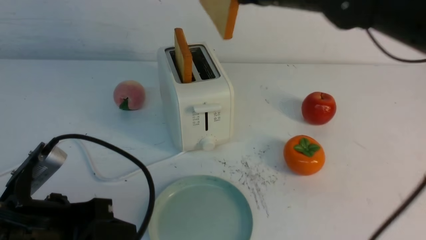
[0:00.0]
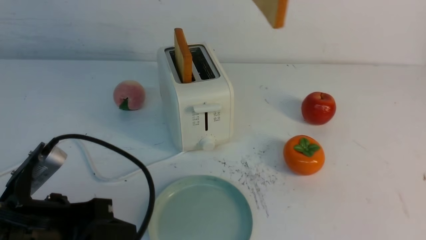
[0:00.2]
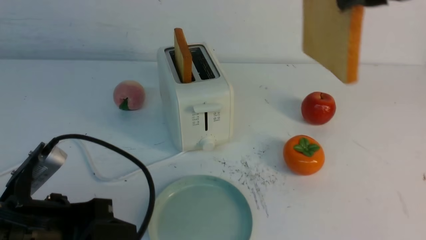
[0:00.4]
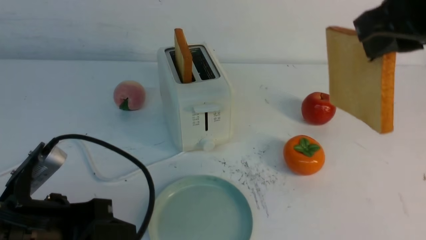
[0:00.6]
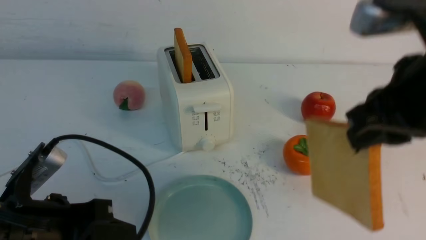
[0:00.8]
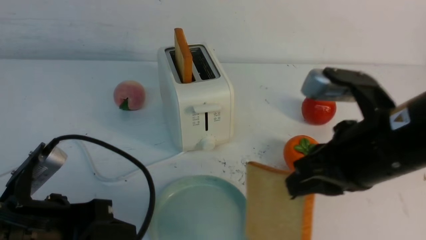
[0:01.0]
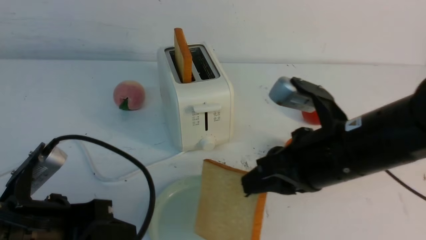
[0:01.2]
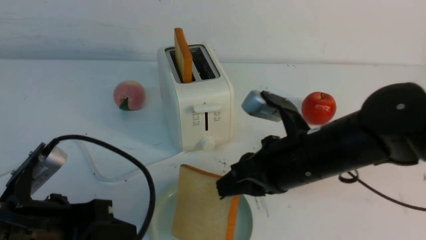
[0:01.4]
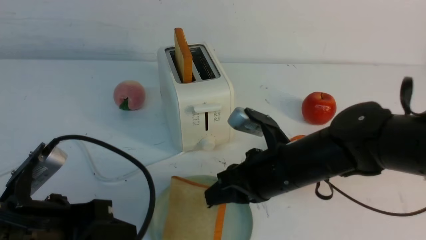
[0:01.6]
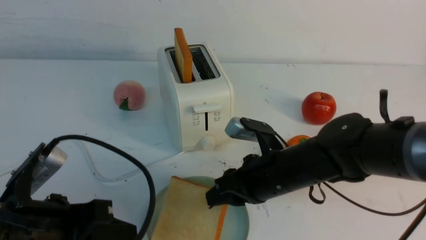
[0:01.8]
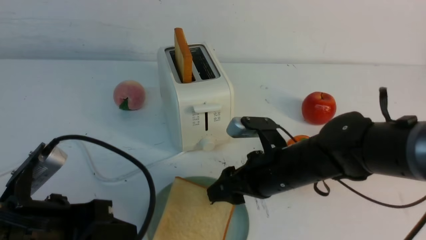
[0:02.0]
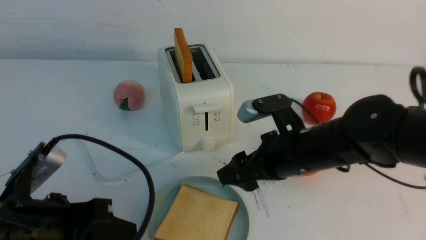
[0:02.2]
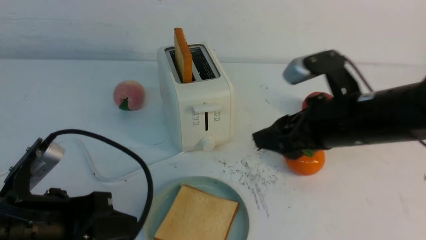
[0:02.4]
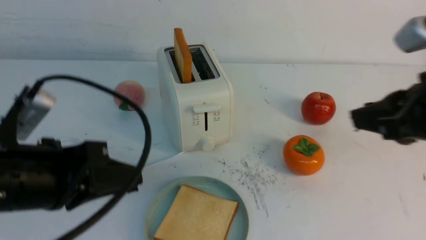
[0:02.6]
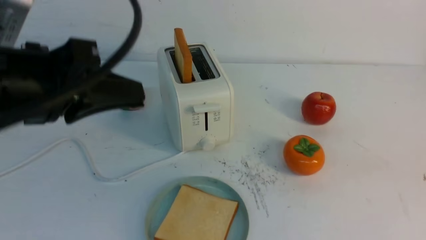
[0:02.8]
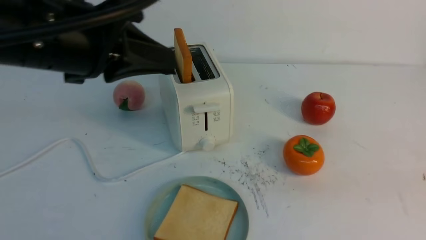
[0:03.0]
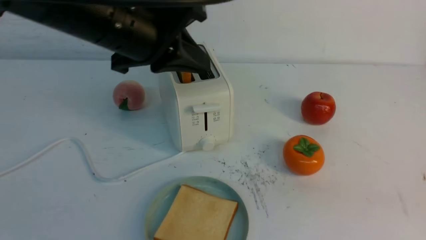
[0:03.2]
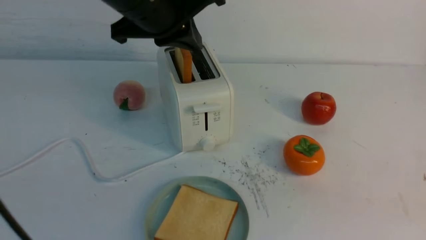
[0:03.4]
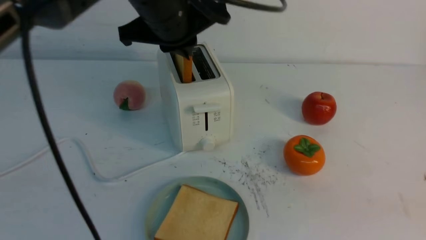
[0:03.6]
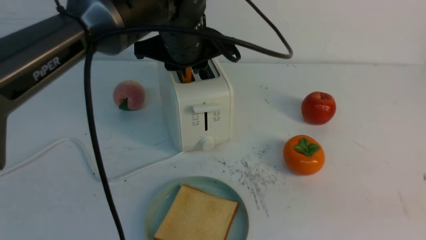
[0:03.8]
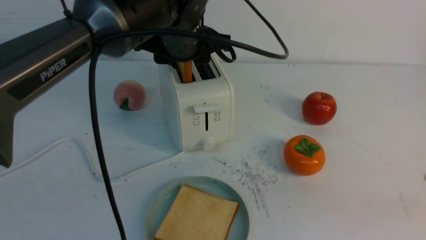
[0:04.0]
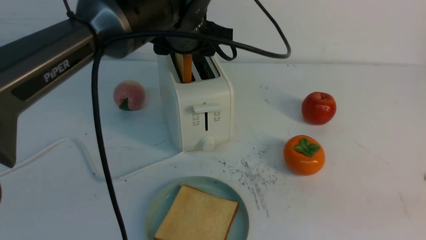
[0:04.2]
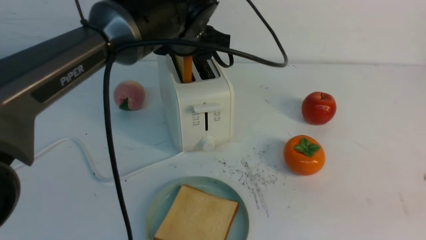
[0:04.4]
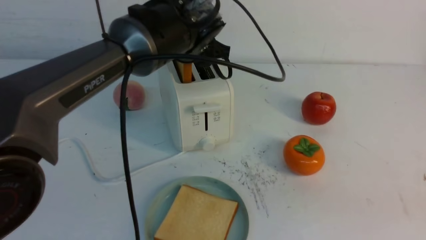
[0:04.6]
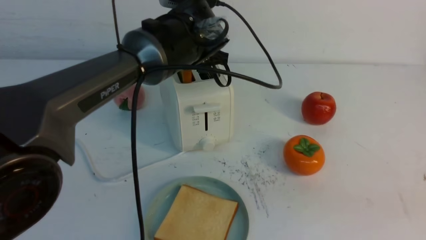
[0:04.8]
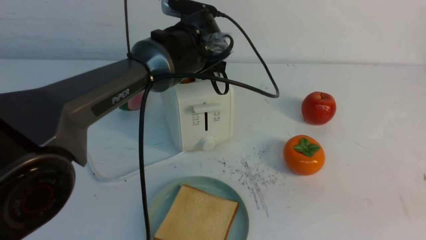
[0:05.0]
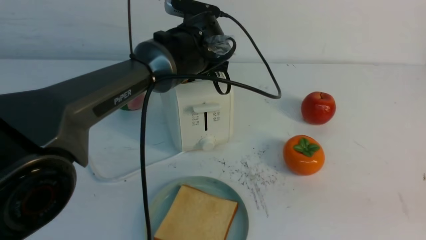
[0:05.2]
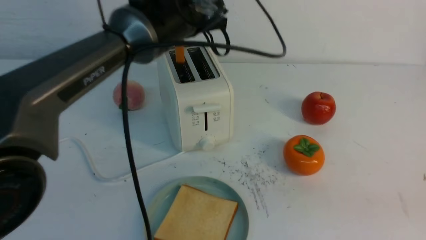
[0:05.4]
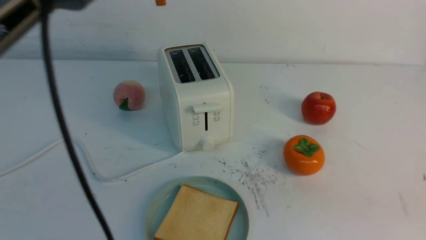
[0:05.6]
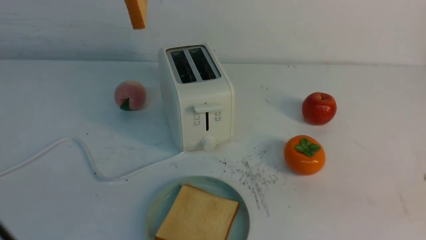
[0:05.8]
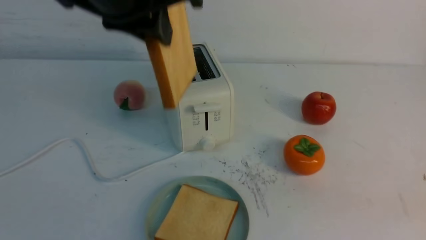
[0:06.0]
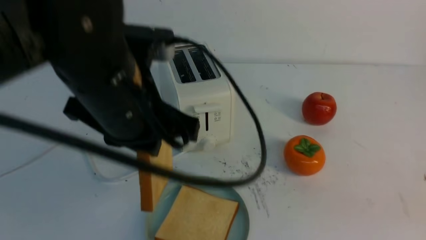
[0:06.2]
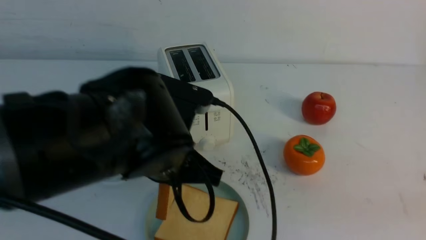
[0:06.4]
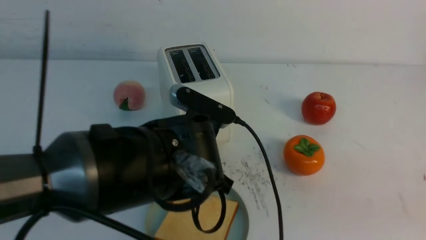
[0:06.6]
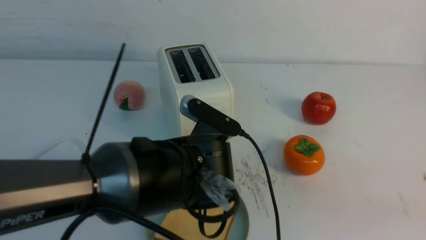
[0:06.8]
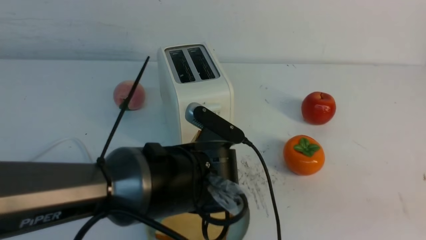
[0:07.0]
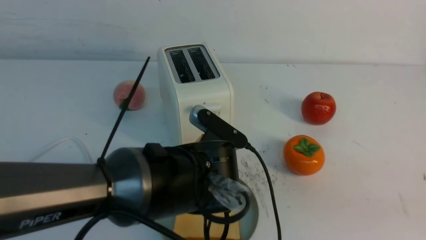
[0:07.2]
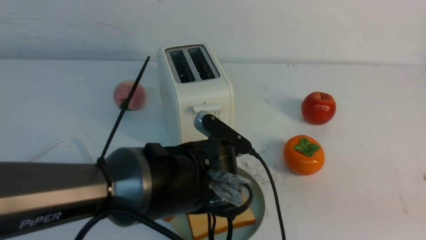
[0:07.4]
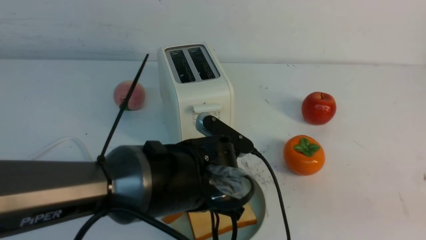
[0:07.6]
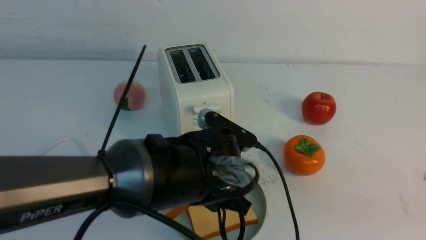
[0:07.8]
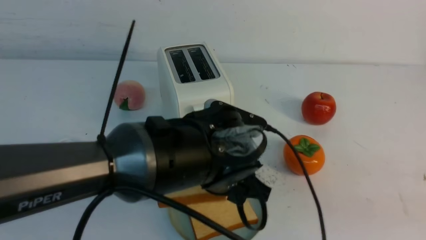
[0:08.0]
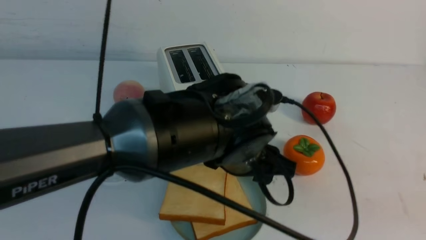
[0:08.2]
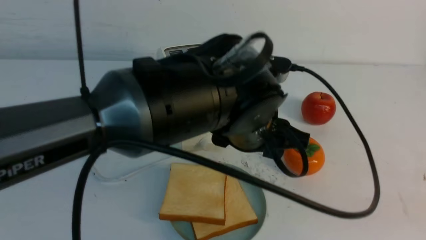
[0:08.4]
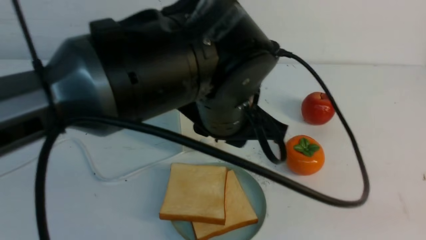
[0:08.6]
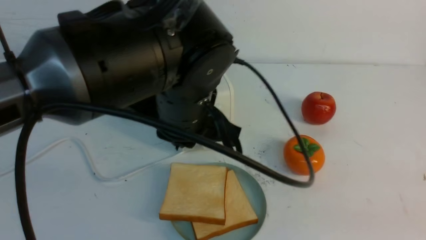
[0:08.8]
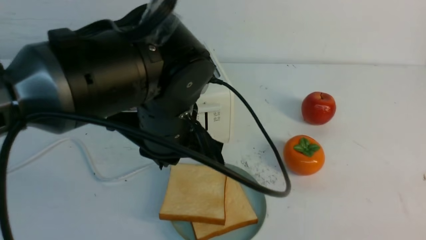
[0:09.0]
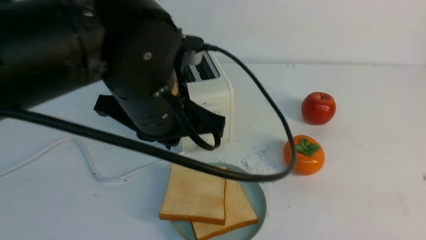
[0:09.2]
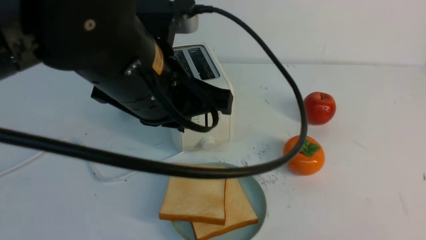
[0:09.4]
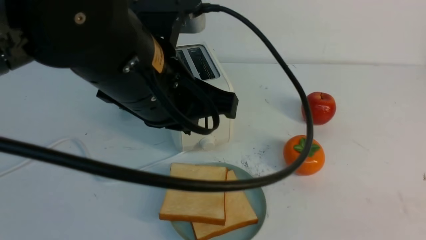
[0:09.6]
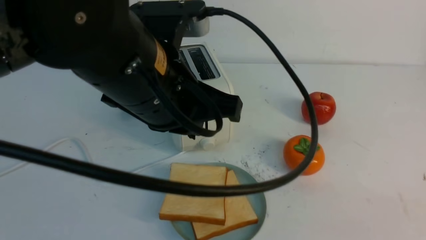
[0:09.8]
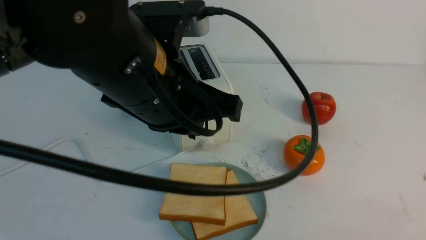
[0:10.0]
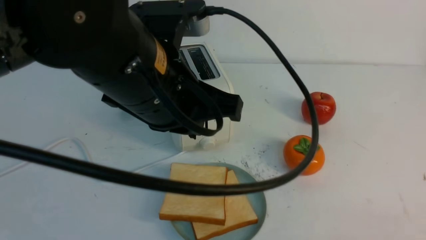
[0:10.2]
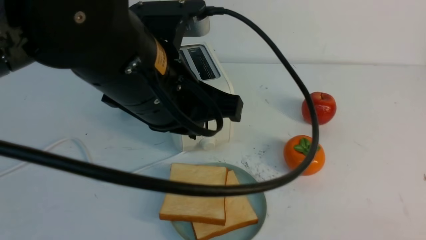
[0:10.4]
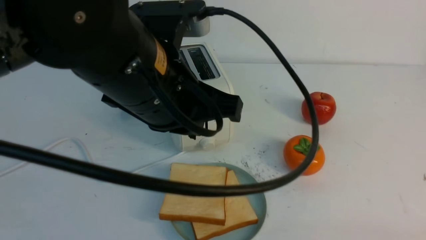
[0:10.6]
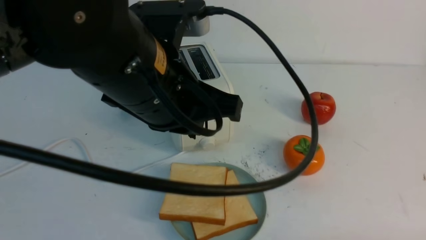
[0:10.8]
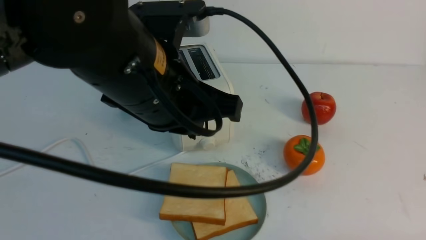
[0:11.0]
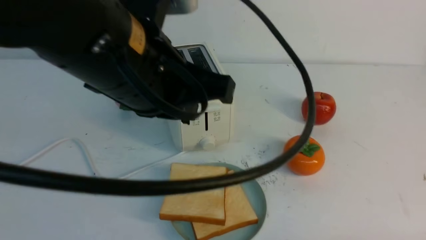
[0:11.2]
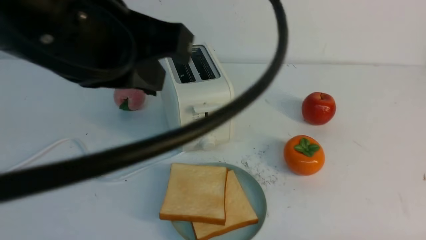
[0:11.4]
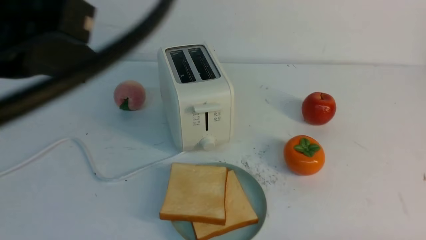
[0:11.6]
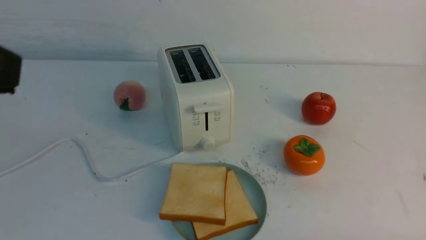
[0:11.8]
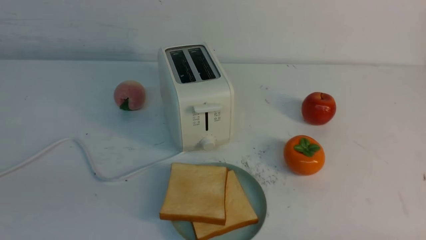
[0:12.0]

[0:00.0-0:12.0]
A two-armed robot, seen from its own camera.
Task of the whole recording: take toasted bread from bread machine on white table place on plate.
Step, 0:00.0 to 0:02.0: use the right arm to put a slice of bread into the plate.
Step, 0:02.2 to 0:05.4: use the left arm to take out a slice of bread.
Step, 0:05.6 to 0:08.6: use the left arm to put a slice of bread into the empty plate.
0:00.0 to 0:01.6: The right gripper travels downward and backward by some 20 cm.
0:01.6 to 0:03.0: The right gripper heads to the right, backward and upward, covering some 35 cm, and opens and closes again; the left gripper shifts approximately 20 cm upward and forward.
0:03.0 to 0:04.4: The left gripper goes roughly 20 cm forward and to the right, and opens.
0:04.4 to 0:06.0: The left gripper swings up and down, some 20 cm each way, with 2 reversals, and closes up.
0:06.0 to 0:07.6: The left gripper heads downward, covering roughly 20 cm.
0:07.6 to 0:09.0: The left gripper shifts approximately 10 cm upward, and closes.
0:09.0 to 0:10.4: The right gripper is displaced downward by approximately 10 cm, while the left gripper heads upward, covering approximately 5 cm.
0:10.4 to 0:12.0: The left gripper shifts about 25 cm to the left and backward, while the right gripper changes place by about 5 cm.

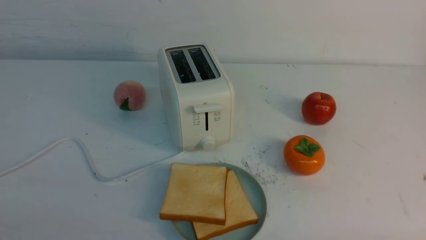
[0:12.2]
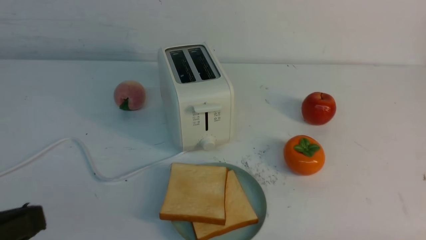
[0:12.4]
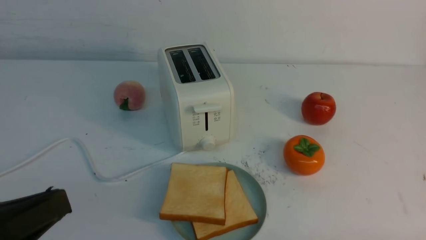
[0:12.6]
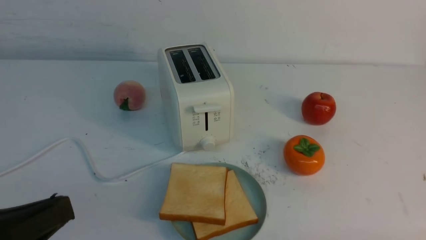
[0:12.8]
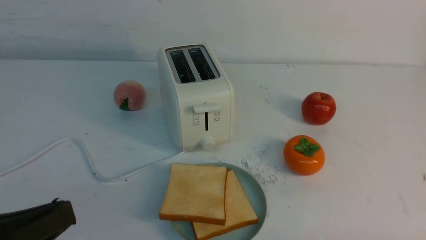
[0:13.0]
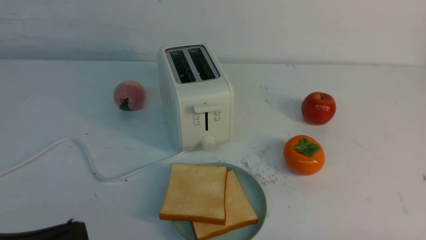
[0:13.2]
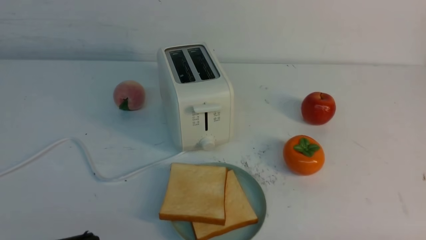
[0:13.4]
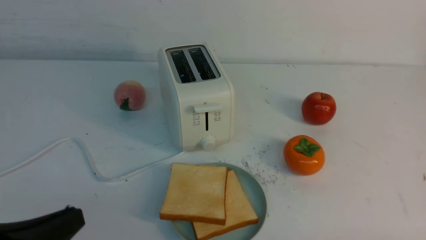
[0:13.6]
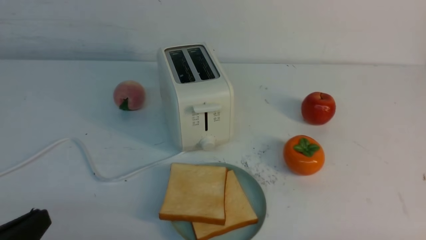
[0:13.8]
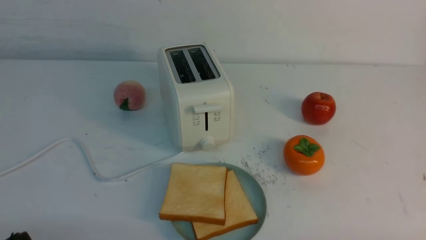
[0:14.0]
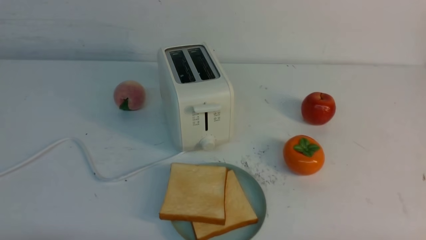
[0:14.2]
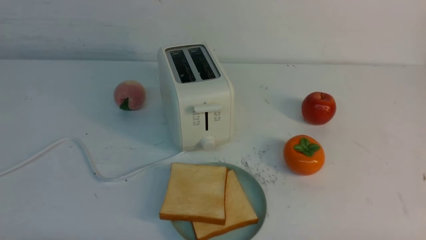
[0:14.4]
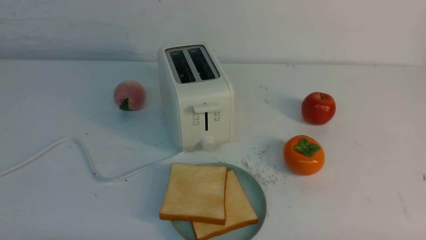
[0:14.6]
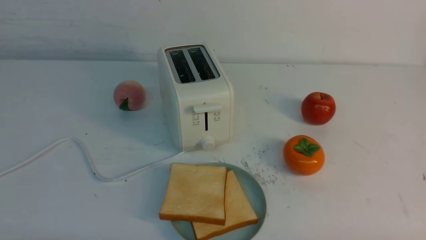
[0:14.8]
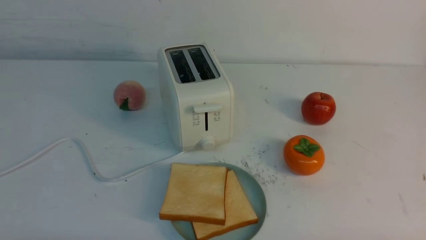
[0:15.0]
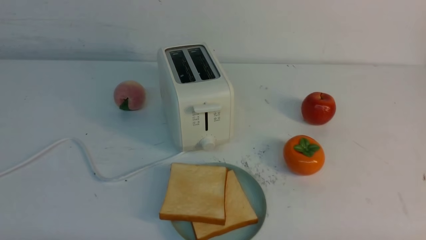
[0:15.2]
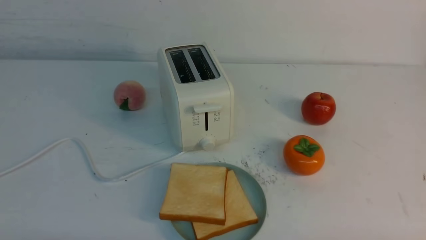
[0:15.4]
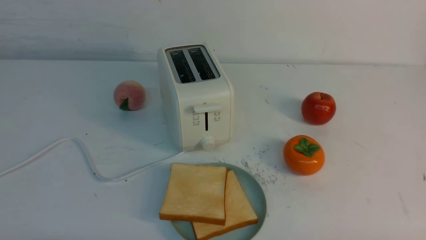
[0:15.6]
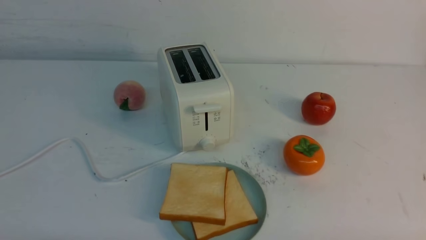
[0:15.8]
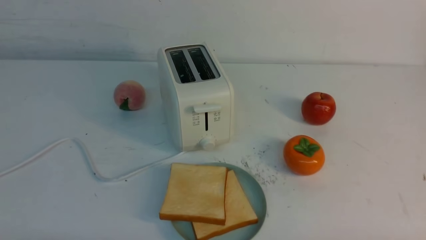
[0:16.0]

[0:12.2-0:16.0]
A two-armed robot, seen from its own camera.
Task of the whole recording: take toasted bread from bread machine on white table place on plate.
0:14.8 to 0:16.0: Both grippers stay about where they are.
